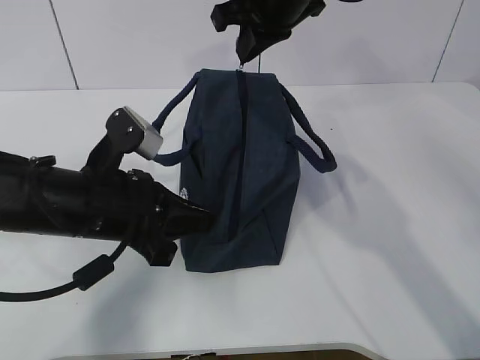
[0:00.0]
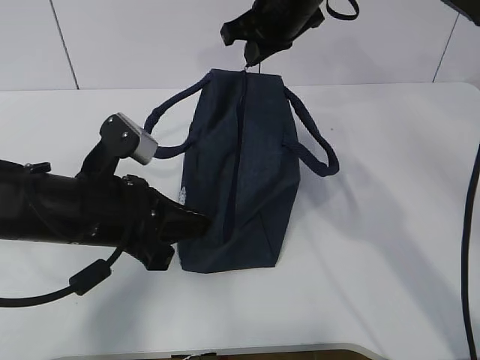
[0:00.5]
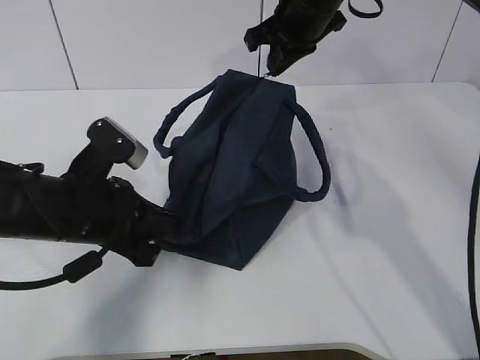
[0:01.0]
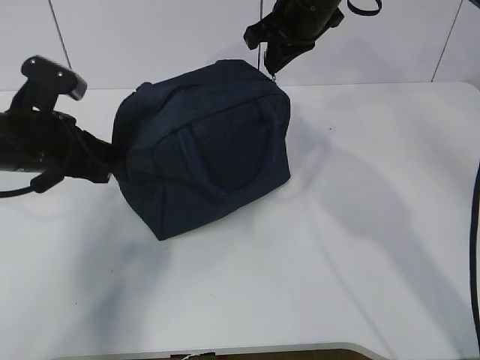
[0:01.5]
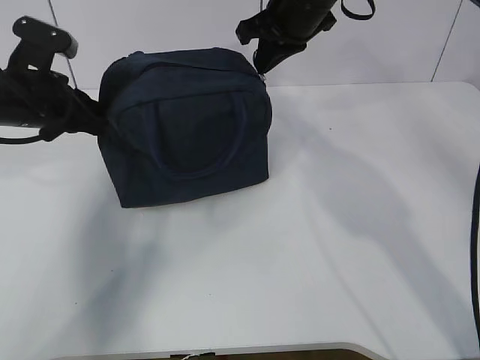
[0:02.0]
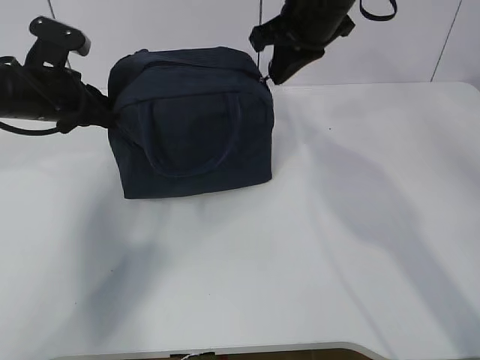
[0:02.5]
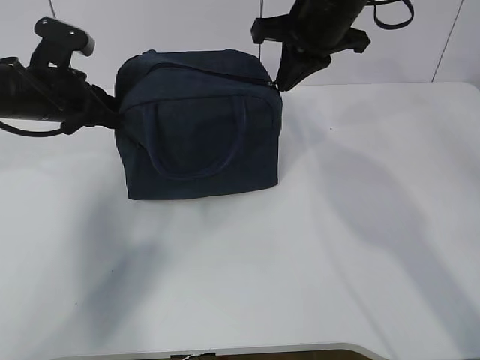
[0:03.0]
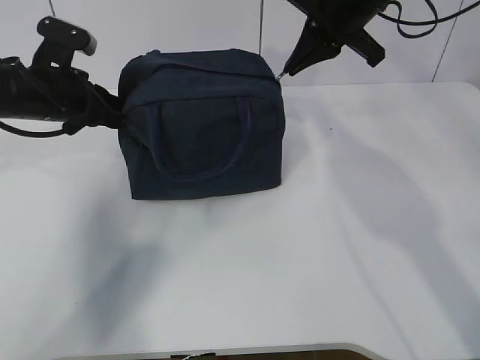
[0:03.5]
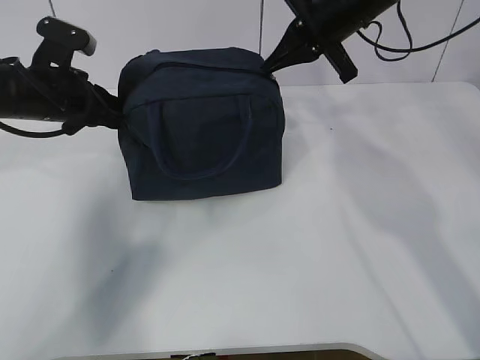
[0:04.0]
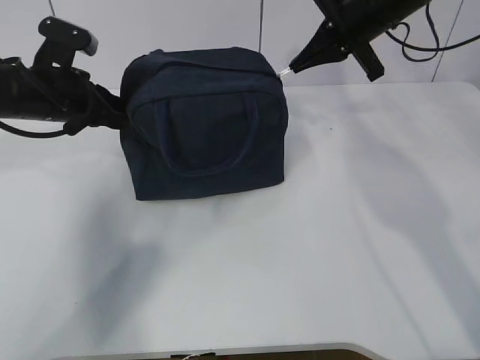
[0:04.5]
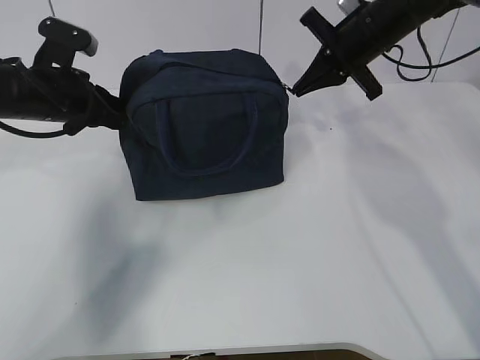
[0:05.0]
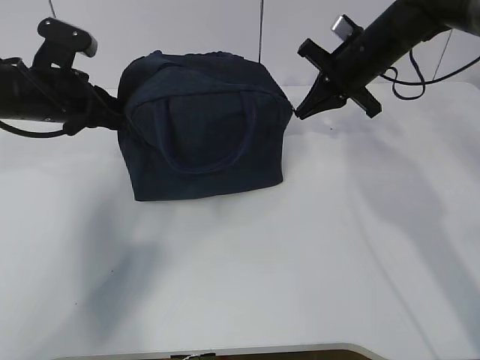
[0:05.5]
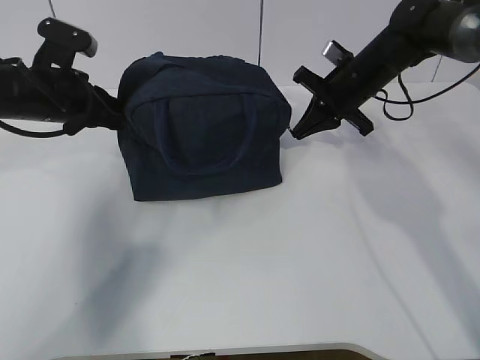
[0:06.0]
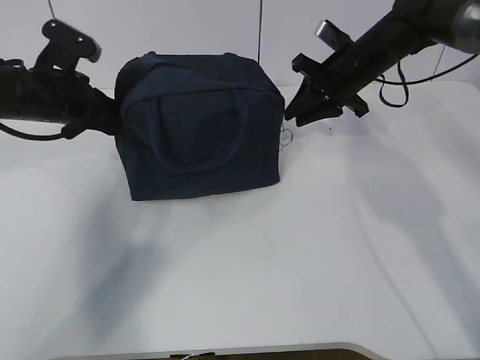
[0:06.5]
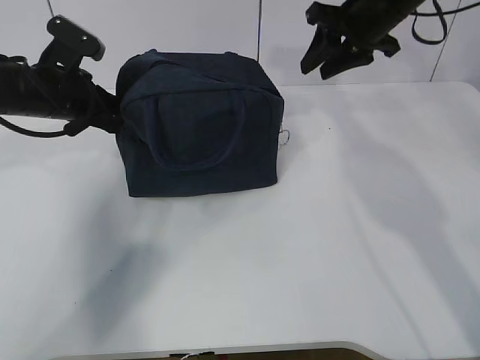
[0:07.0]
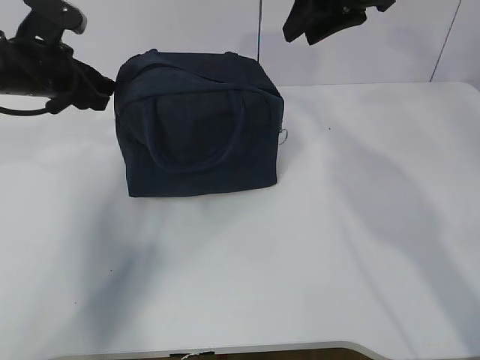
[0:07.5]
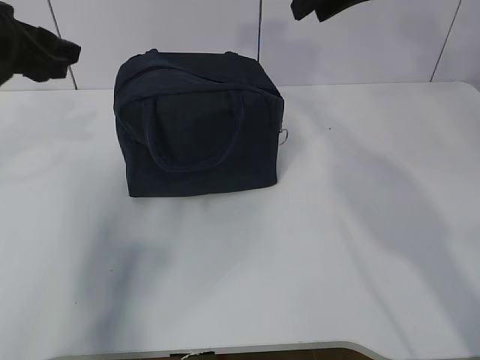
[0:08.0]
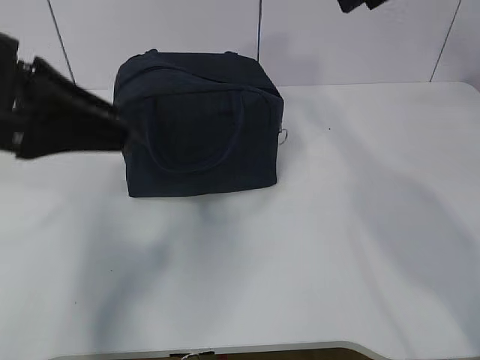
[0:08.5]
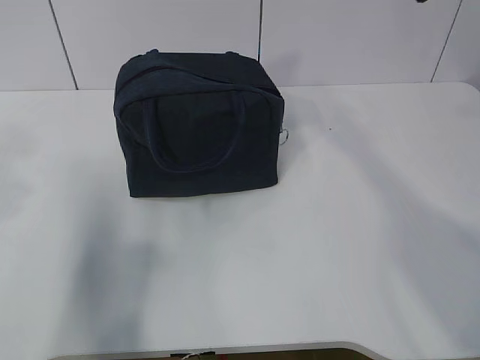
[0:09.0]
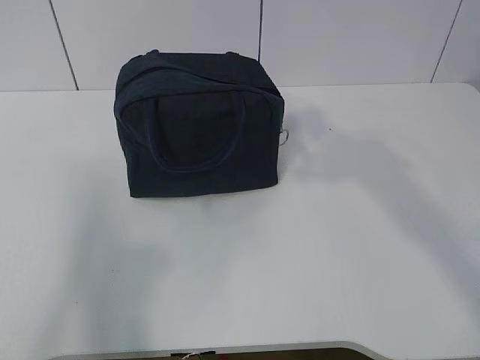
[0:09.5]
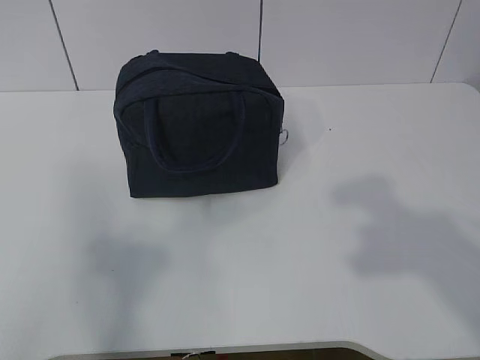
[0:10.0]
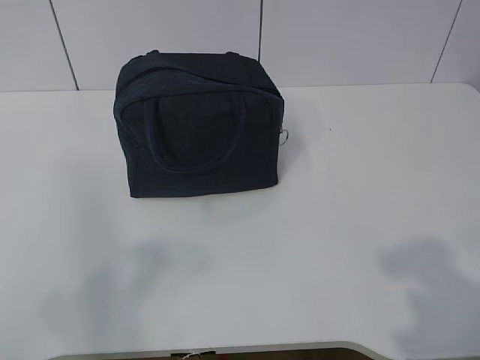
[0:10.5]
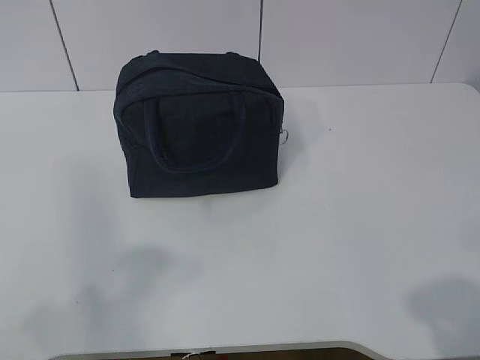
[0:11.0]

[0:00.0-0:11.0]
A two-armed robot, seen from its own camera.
0:00.0 to 0:02.0: The left gripper travels forward and to the left by approximately 15 cm. The right gripper ends up about 5 cm from where it was.
0:02.0 to 0:03.5: The right gripper ends up some 5 cm from where it was.
0:03.5 to 0:05.5: The right gripper goes roughly 10 cm downward.
0:05.5 to 0:07.5: The right gripper is displaced upward and backward by some 15 cm, and opens its fingers. The left gripper opens.
0:07.5 to 0:09.0: The two grippers go some 20 cm backward and upward.
0:09.0 to 0:11.0: The right gripper moves backward and downward, roughly 35 cm. The left gripper goes approximately 20 cm backward.

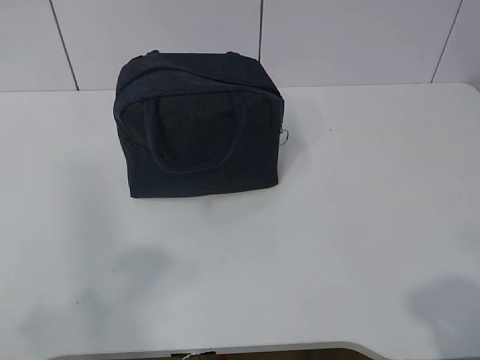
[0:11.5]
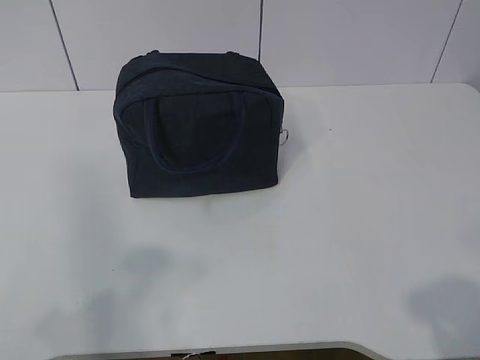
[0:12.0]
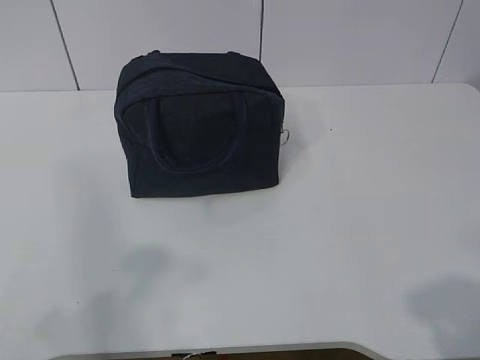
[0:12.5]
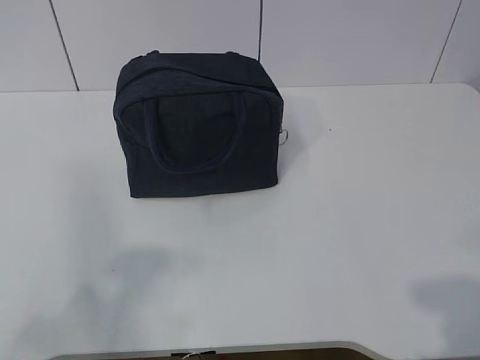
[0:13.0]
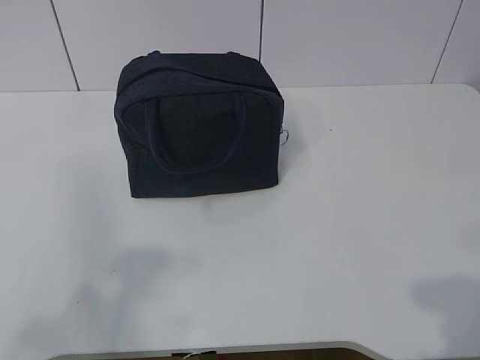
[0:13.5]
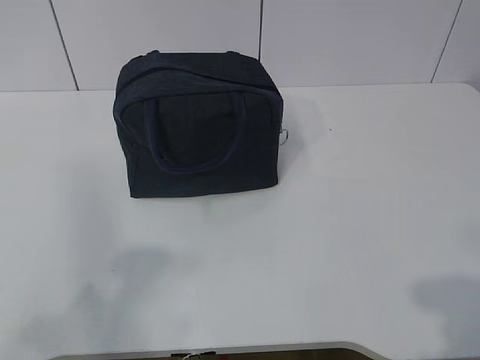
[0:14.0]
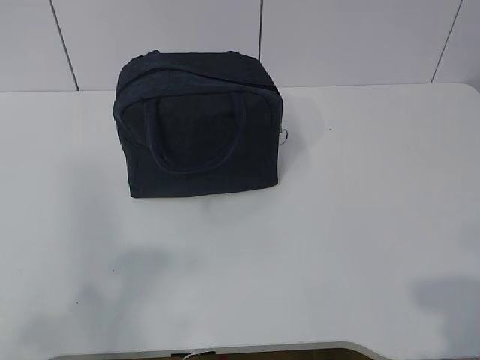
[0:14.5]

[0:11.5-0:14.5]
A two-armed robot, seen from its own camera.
0:13.0 to 0:14.5: Both grippers stay put.
